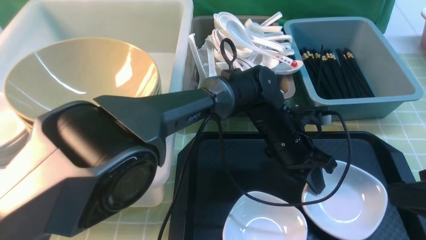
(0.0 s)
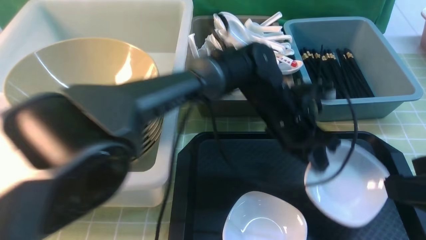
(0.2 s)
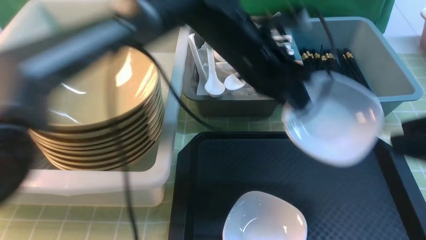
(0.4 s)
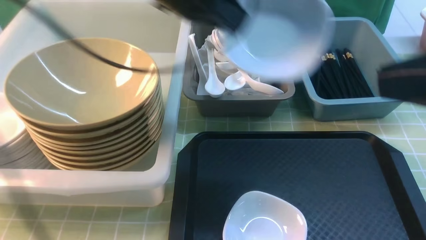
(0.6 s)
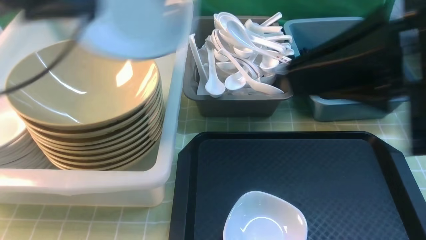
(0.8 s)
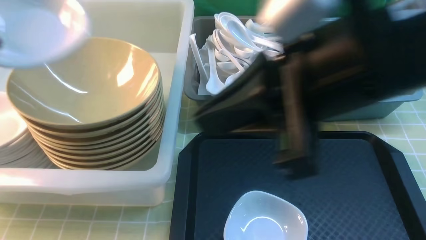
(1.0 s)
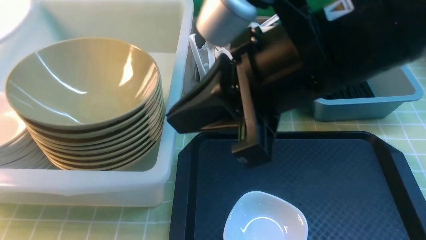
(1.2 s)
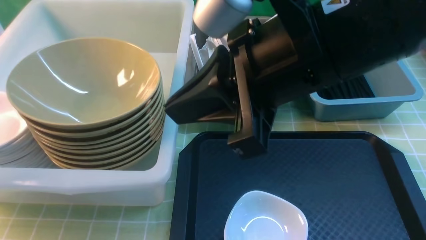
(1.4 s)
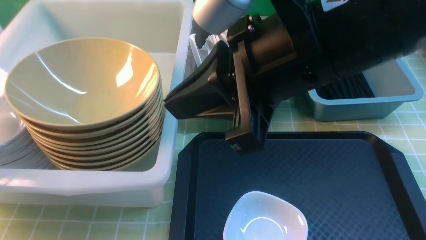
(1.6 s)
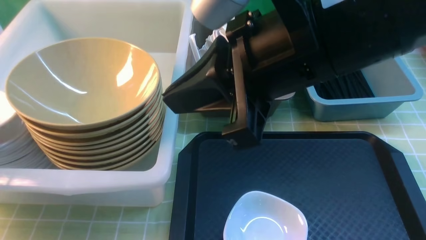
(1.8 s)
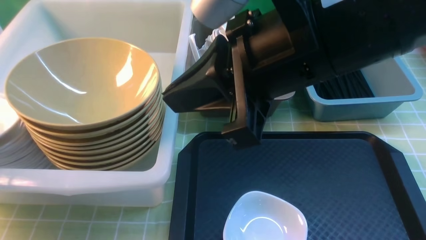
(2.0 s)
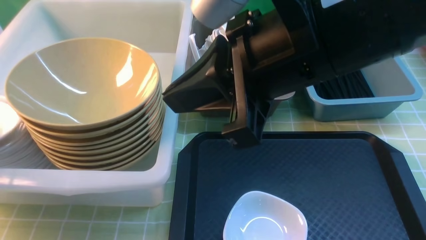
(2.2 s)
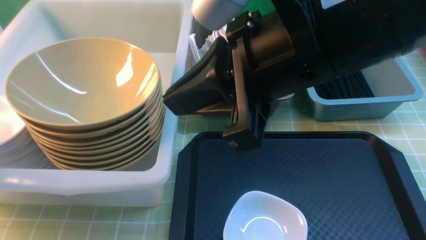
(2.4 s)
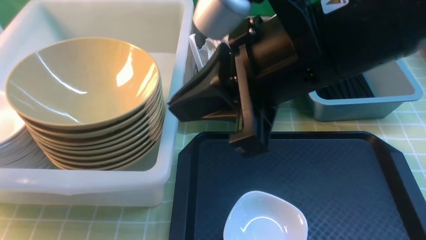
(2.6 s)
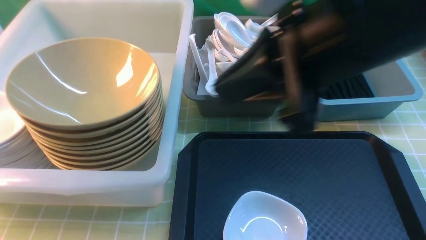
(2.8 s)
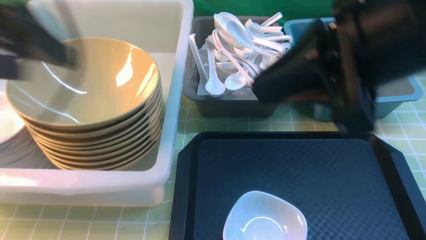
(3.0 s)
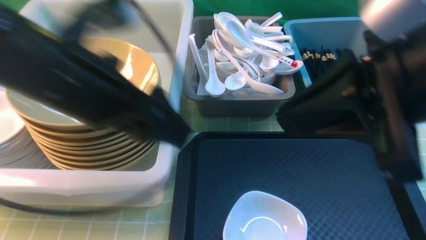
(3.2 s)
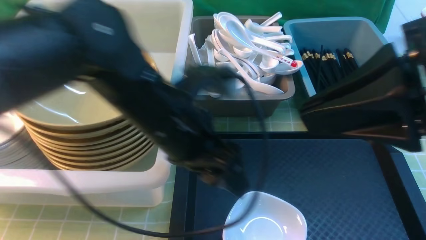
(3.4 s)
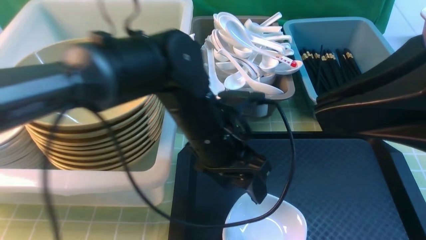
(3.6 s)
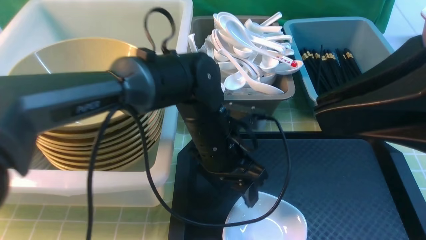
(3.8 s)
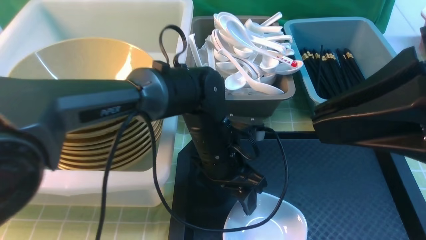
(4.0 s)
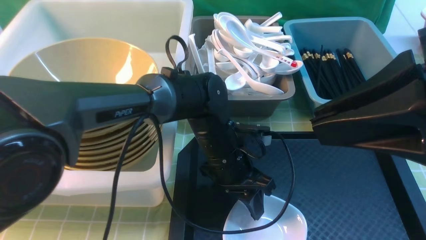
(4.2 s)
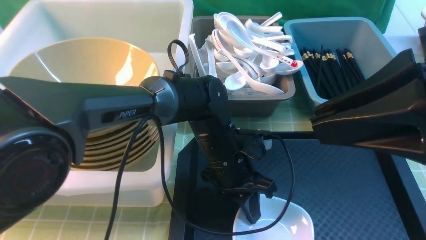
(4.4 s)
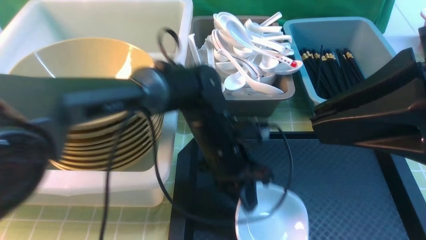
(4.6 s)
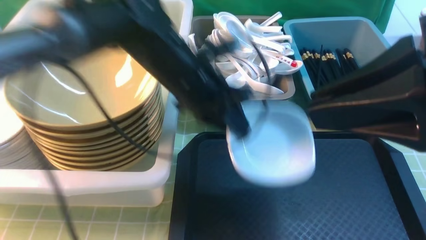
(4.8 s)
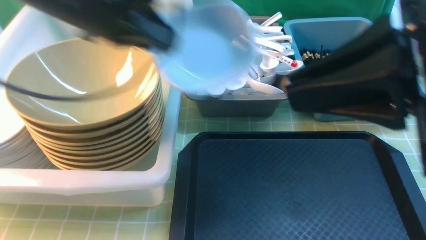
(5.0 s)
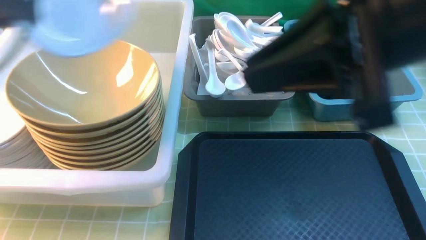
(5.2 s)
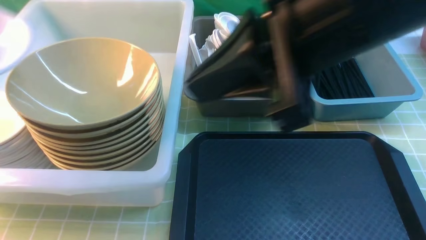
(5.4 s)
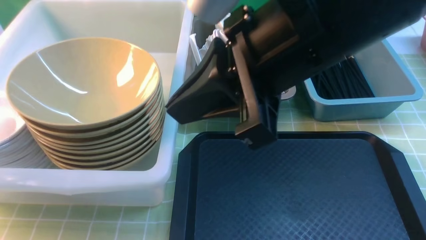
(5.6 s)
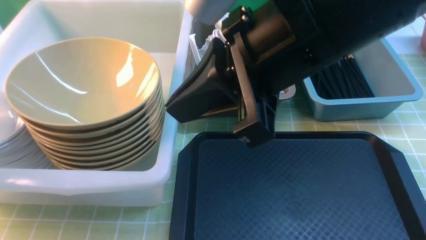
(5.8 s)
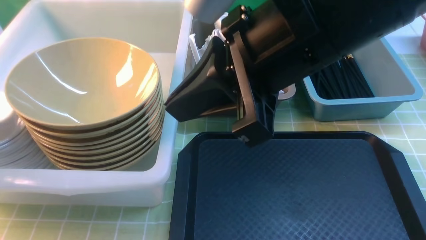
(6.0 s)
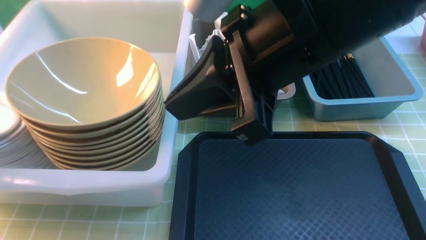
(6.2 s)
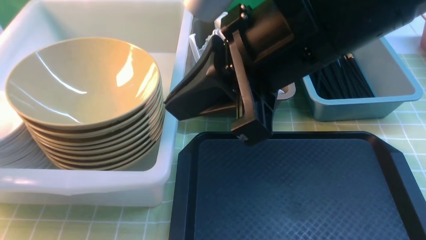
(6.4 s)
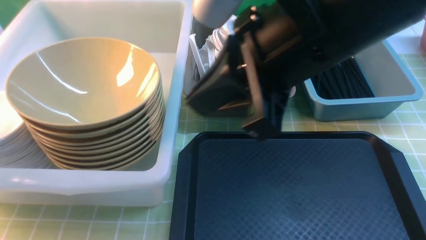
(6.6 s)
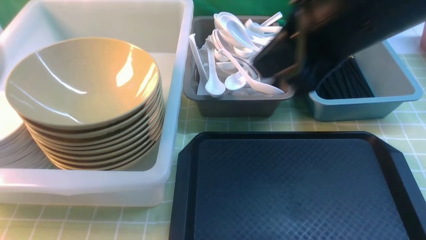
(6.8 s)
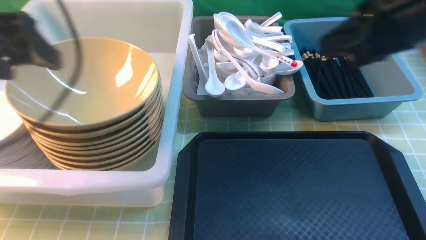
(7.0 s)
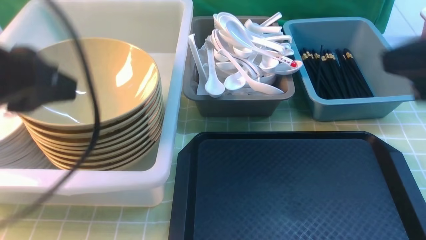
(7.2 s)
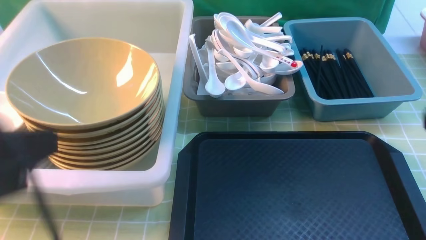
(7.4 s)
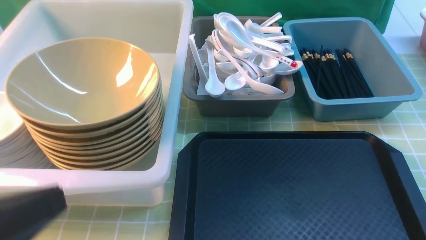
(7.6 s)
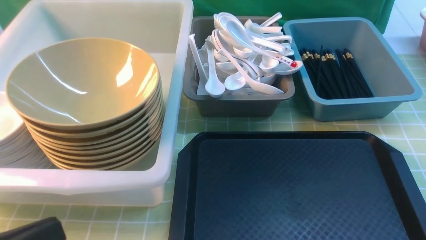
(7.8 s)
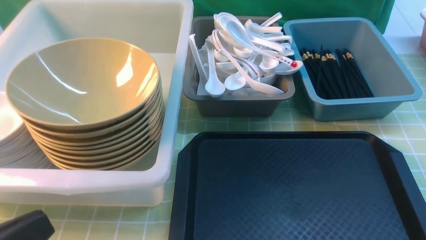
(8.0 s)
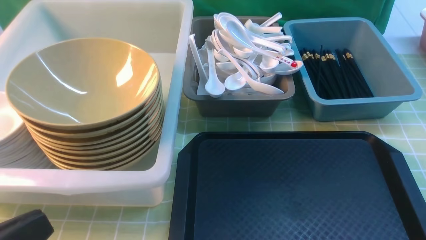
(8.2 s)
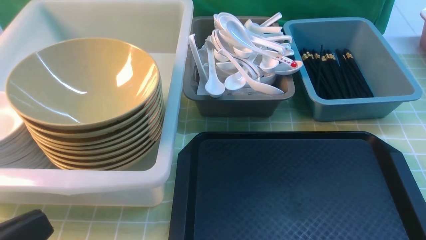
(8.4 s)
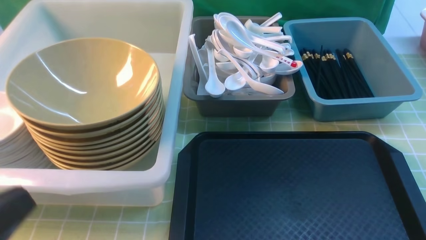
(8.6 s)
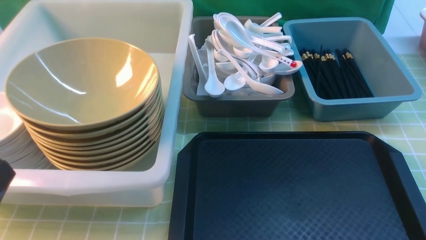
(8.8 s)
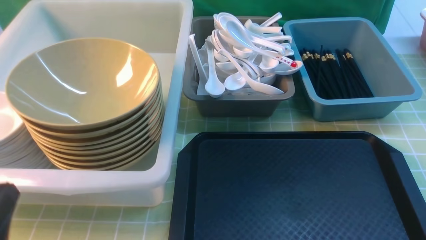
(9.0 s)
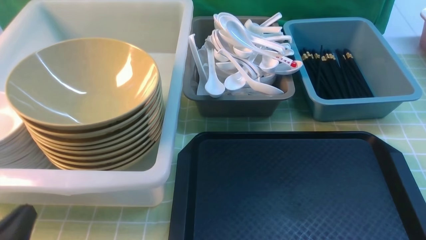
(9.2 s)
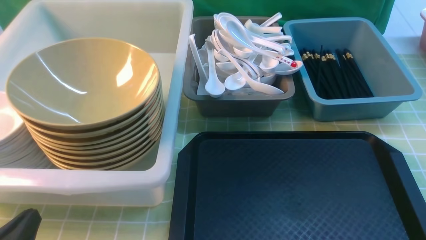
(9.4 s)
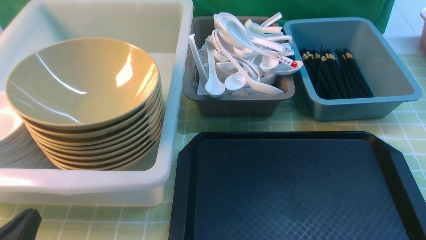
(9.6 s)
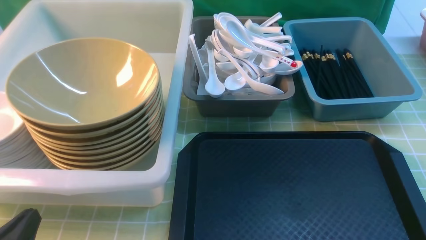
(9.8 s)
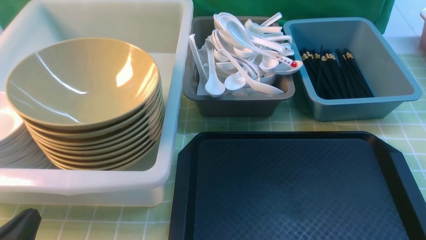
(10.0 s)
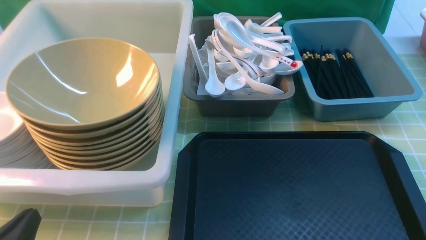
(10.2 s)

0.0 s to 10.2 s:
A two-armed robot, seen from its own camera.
Task of the whole recording: on green table put chopsticks spoon bowls plates into blue grey white boxes.
Step, 0.4 to 2.6 s: use the left arm to put the plate into the large storage box on the left.
Step, 2.8 to 4.6 s: use the left arm to grab the plate.
Step, 4.8 to 6.8 s: use the left arm to put the plate into the large storage box on the left.
0.0 to 1.4 s: The right gripper shifts roughly 20 cm to the left and upward, and closes, while the left gripper travels to the left by about 50 cm.
1.4 to 3.0 s: The left gripper heads to the right, covering roughly 20 cm, and opens its fingers, while the right gripper is displaced to the right by some 5 cm.
3.0 to 4.4 s: The right gripper goes some 5 cm backward. The left gripper moves to the right and downward, some 30 cm, and closes its fingers.
4.4 to 5.8 s: The right gripper is displaced to the left and forward by roughly 15 cm. The left gripper shifts roughly 50 cm to the left and upward.
5.8 to 7.2 s: The two grippers go about 20 cm to the right. The left gripper opens and closes again.
7.2 to 8.8 s: The left gripper is displaced downward and backward by approximately 15 cm. Meanwhile the right gripper shifts about 20 cm backward, downward and to the right.
8.8 to 10.2 s: The left gripper travels downward by roughly 10 cm.

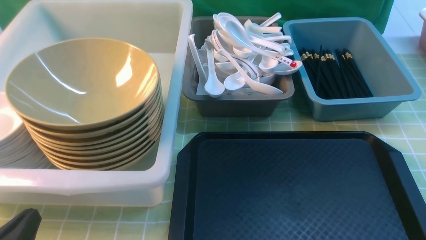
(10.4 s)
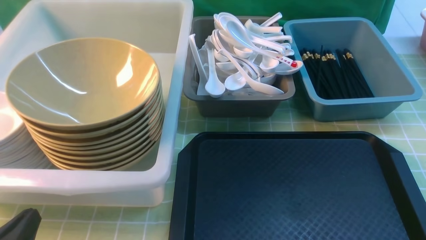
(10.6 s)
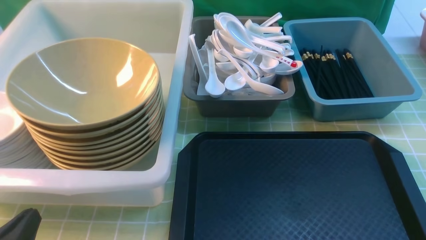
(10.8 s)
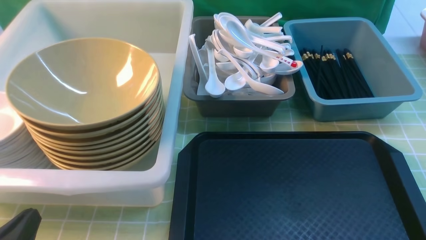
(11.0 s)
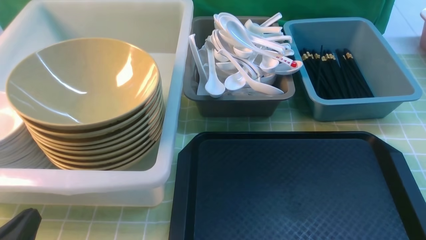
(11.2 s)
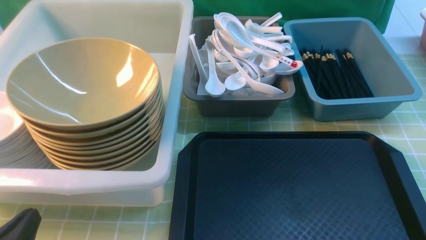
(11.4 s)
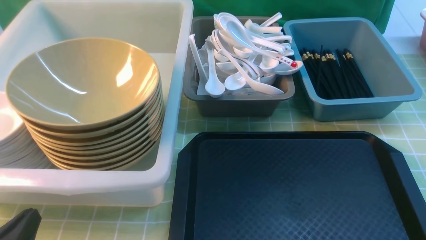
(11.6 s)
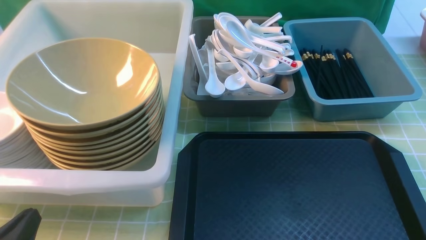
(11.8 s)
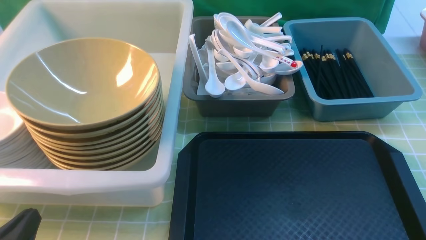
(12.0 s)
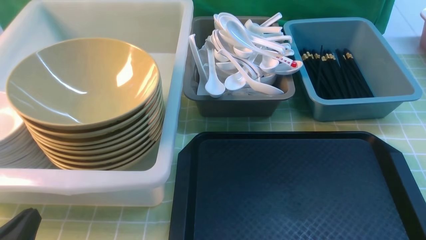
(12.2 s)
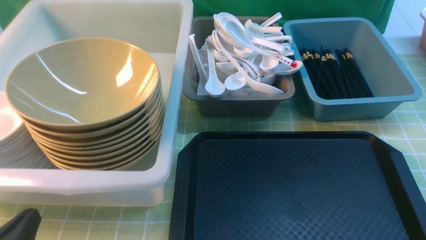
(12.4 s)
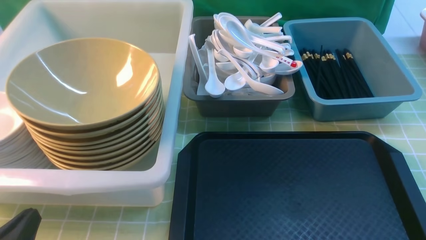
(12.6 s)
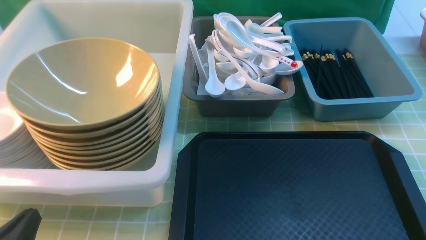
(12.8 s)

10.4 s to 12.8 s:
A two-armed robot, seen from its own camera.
Task of the whole recording: on green table put chopsticks spoon bowls plates into blue grey white boxes.
11.6 to 12.8 s: Neither gripper changes place.

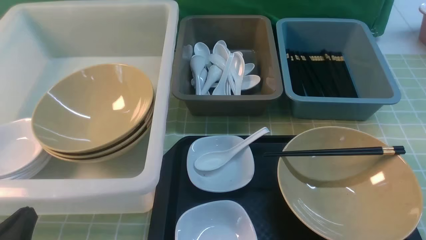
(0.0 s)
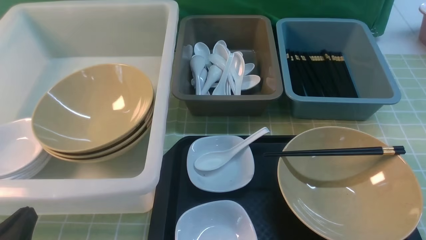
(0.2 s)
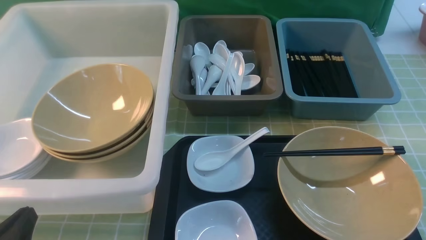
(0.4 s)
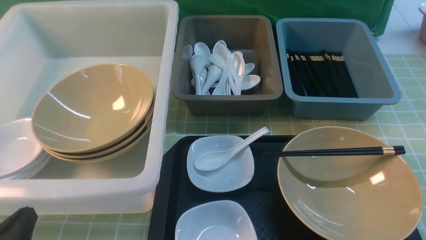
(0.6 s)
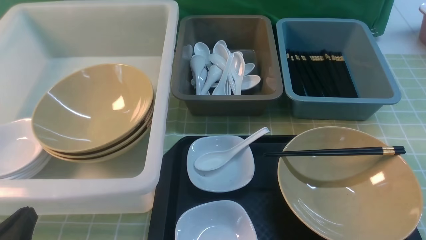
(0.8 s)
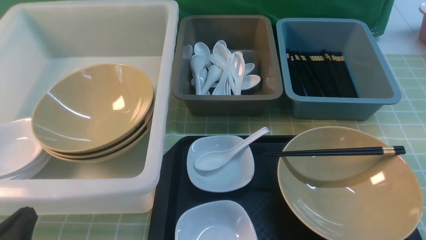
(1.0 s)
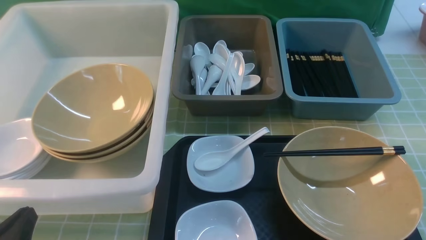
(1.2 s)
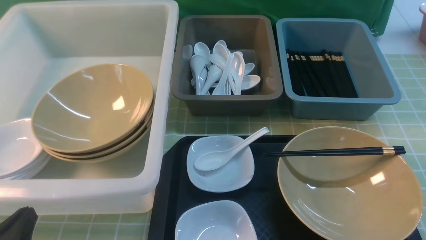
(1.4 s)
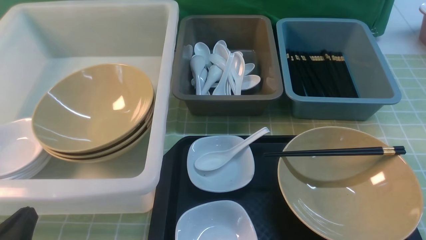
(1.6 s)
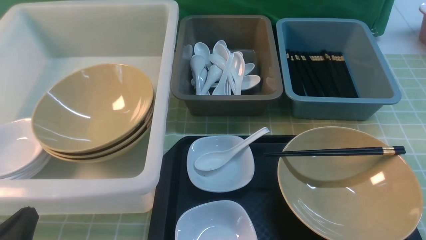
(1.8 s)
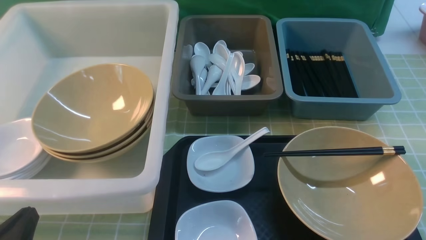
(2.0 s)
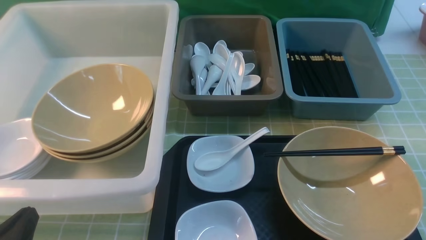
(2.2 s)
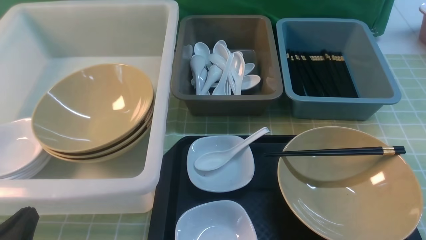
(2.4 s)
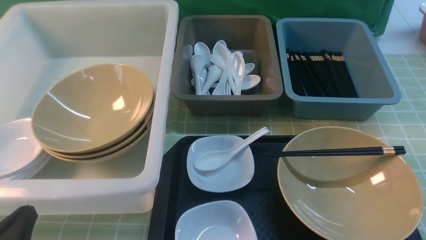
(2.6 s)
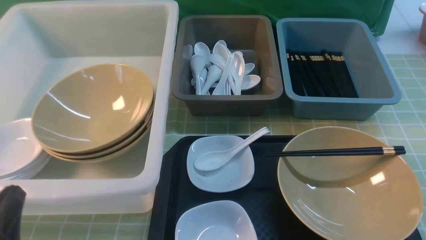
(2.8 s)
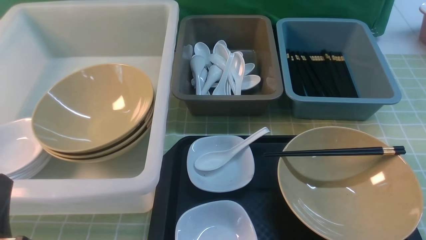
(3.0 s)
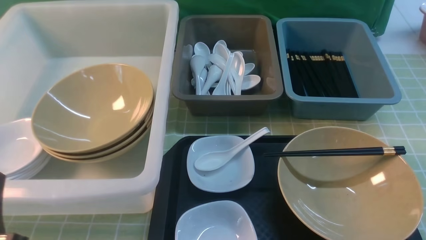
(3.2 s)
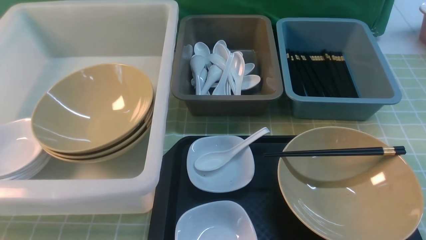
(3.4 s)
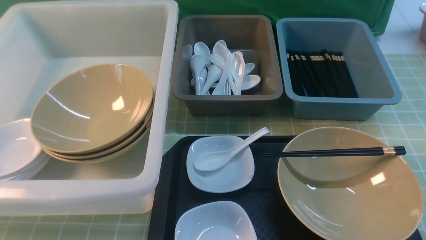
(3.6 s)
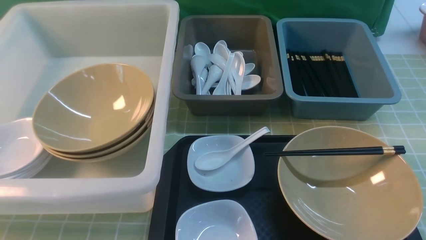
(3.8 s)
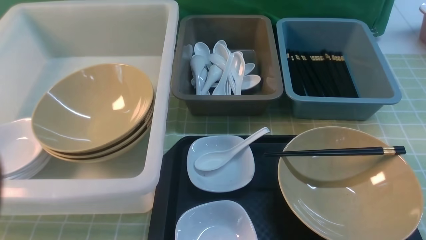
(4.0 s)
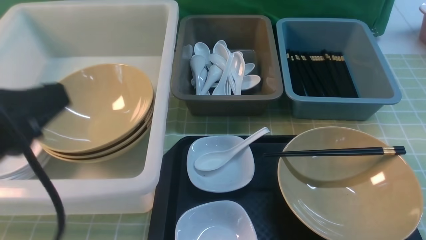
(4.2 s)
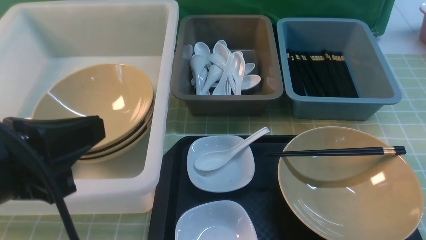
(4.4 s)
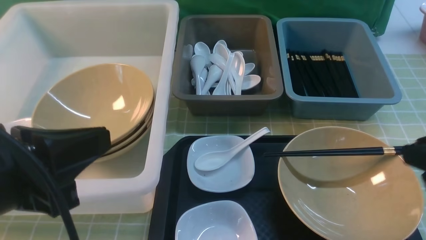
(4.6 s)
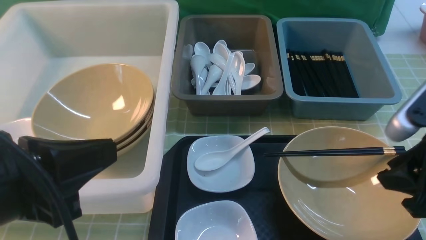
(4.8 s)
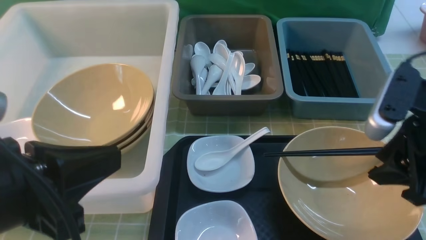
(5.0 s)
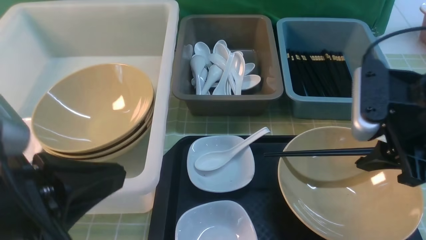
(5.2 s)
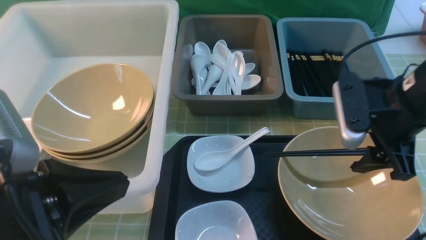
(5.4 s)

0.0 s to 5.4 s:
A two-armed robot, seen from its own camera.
Task of the whole recording: on green table put chopsticks spoon bowls plates into blue grey white boxes.
0.0 to 1.4 s: Neither gripper changes place.
1.4 to 2.8 s: There are only small adjustments of the grippers.
2.8 to 4.0 s: The left gripper is displaced upward by some 20 cm.
4.0 to 5.4 s: The left gripper shifts roughly 5 cm downward and to the right, while the right gripper travels forward, to the left and downward by some 20 cm, and opens.
